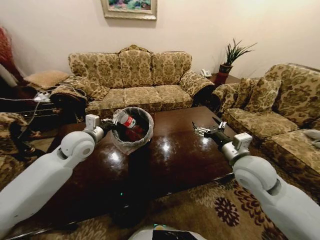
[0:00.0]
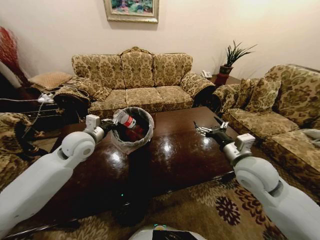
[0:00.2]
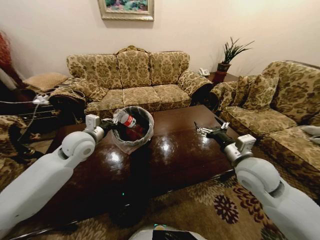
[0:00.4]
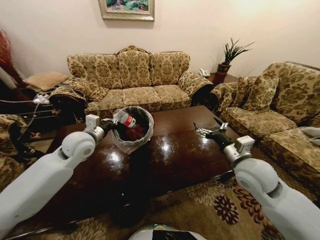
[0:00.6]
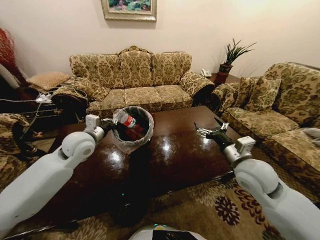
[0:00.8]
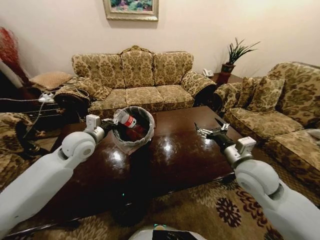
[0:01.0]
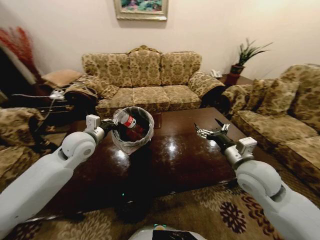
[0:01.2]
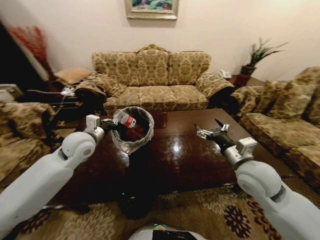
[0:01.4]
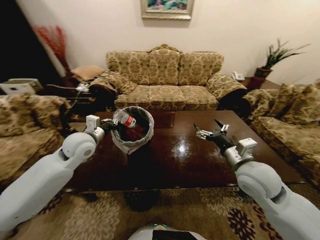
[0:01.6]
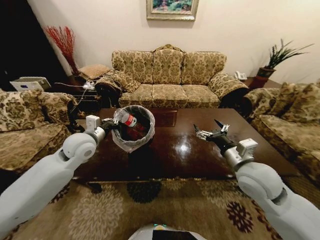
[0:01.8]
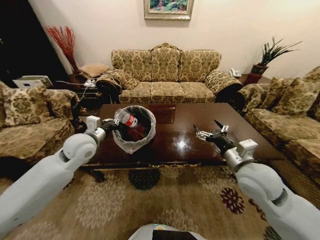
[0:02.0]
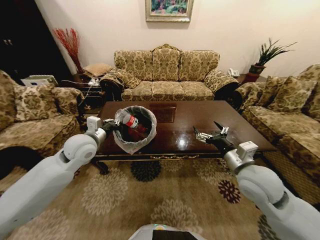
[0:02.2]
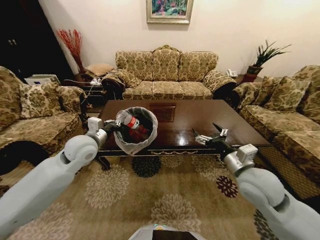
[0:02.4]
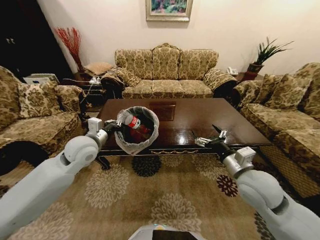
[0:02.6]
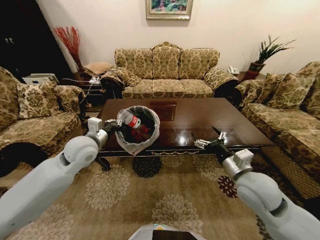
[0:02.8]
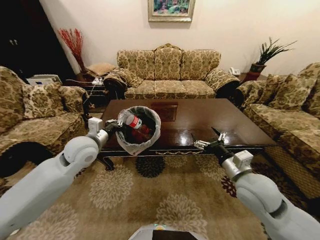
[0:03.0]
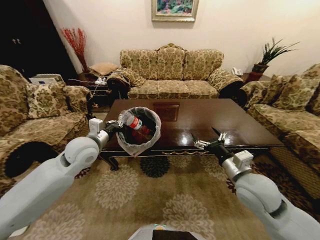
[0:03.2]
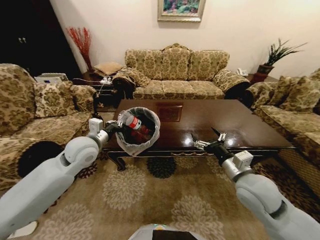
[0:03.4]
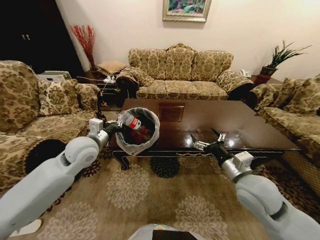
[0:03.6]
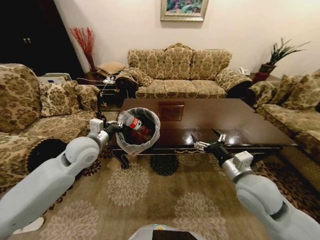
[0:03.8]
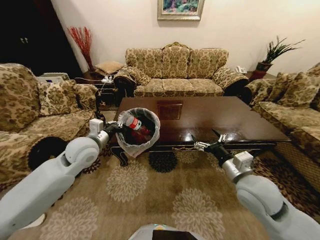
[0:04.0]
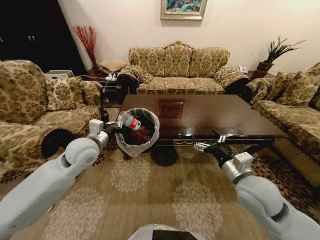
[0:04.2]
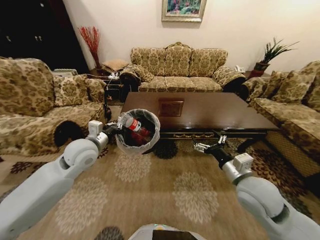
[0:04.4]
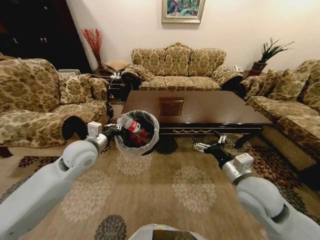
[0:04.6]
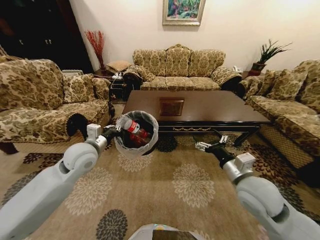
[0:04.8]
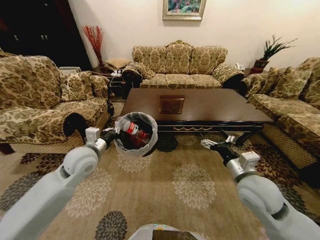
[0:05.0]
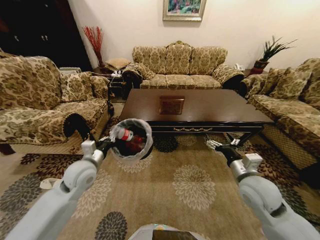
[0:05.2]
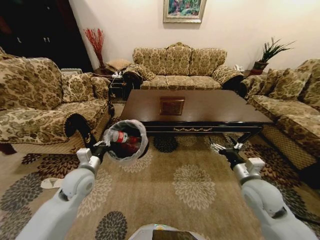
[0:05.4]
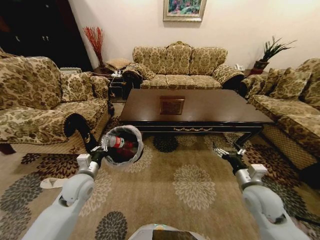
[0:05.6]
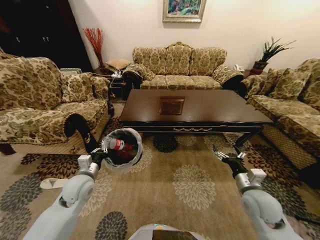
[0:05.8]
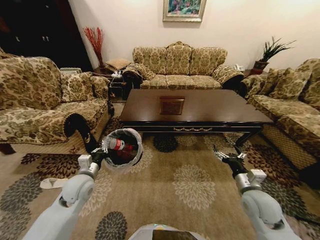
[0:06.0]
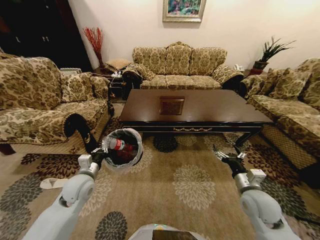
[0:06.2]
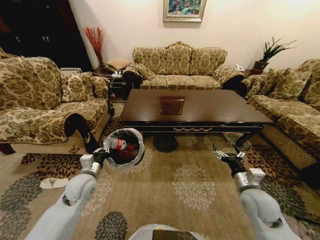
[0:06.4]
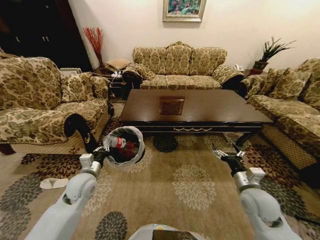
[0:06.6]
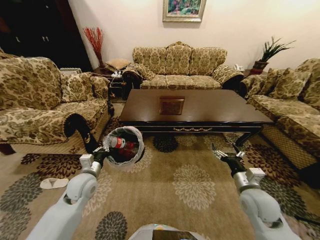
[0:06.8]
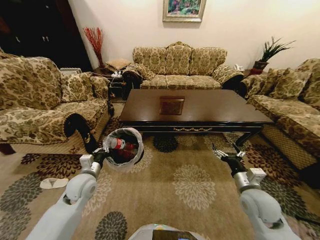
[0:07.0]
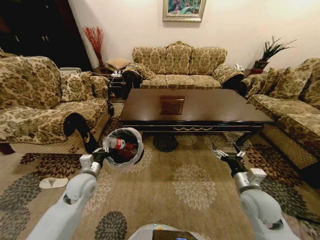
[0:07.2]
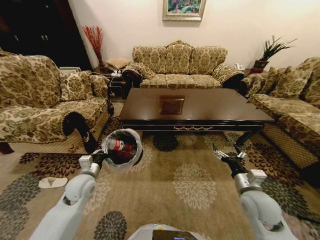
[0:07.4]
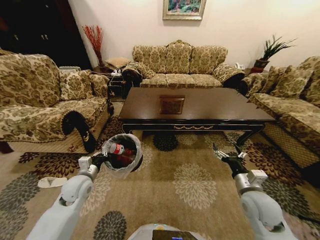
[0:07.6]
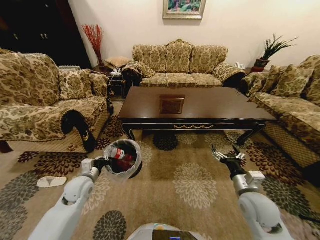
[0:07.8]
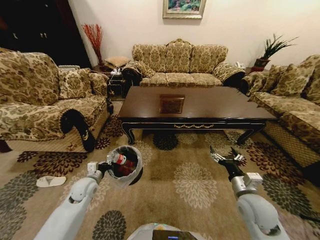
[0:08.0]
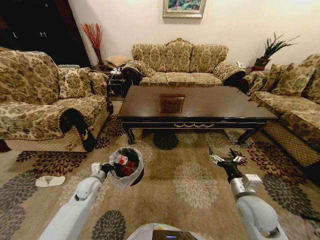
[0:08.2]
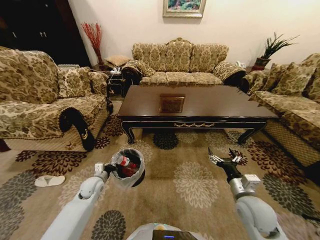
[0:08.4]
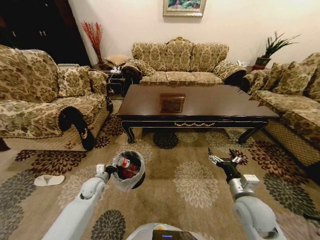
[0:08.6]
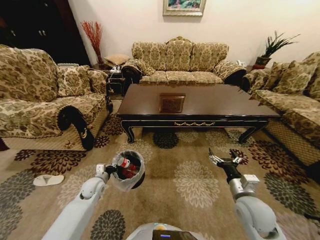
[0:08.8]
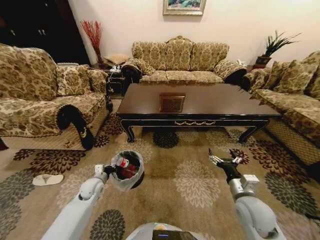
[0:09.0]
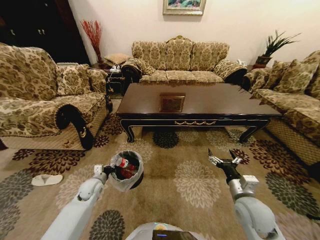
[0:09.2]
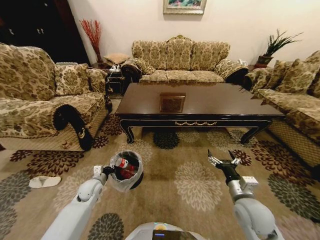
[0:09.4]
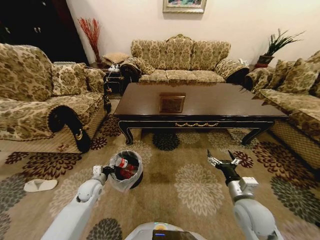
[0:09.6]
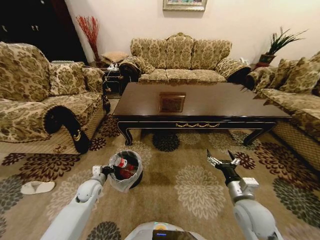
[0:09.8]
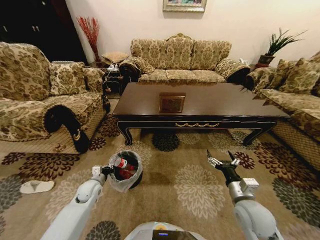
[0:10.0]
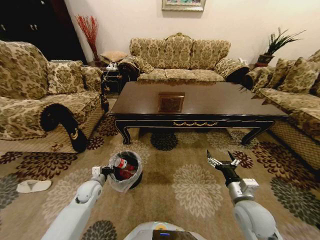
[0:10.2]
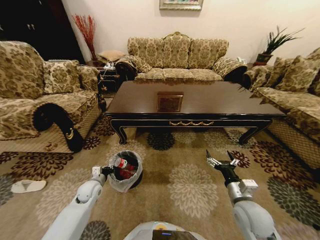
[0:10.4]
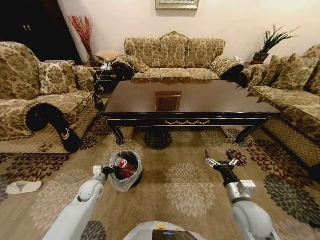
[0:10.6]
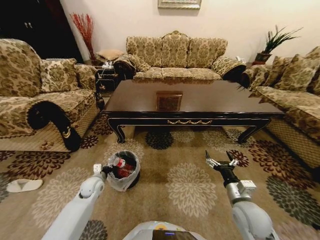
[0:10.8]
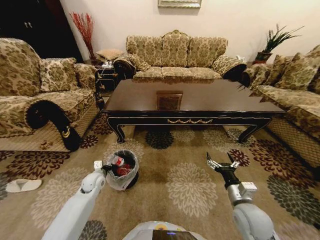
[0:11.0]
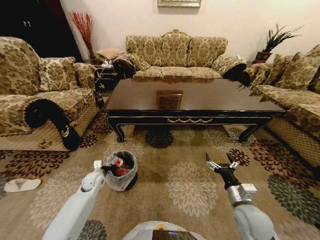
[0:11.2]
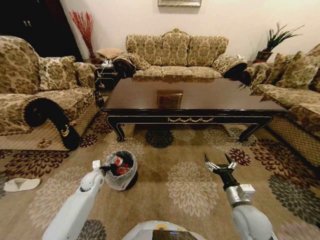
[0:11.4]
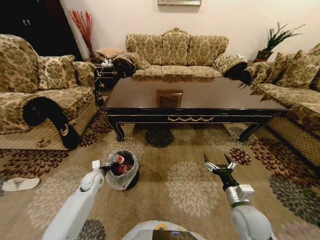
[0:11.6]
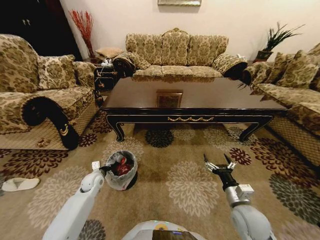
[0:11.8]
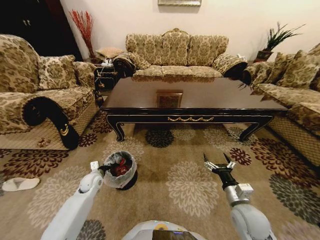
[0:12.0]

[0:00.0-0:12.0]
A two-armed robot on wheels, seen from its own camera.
Task of the whole recording: Move to the front of the table and place the trash on the table into the trash bin.
0:04.4 to 0:06.0: The right gripper travels downward and to the right by roughly 10 cm, while the left gripper goes approximately 15 cm downward and backward.
0:06.0 to 0:07.6: The grippers make only small movements.
0:07.6 to 0:09.0: The left gripper travels downward by some 10 cm.

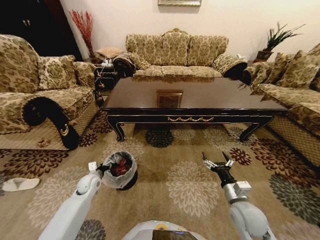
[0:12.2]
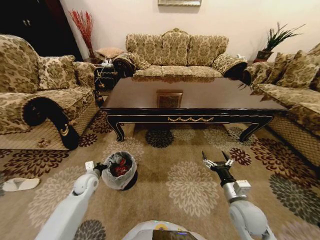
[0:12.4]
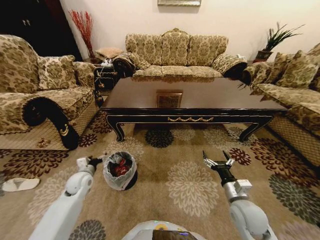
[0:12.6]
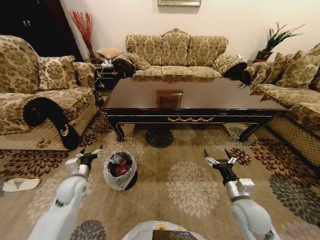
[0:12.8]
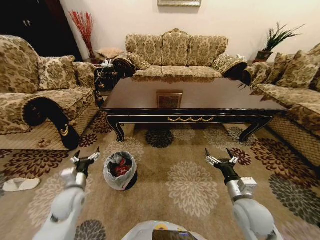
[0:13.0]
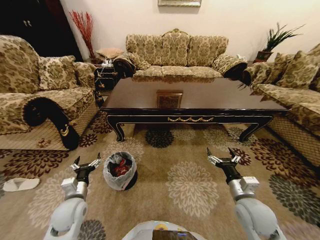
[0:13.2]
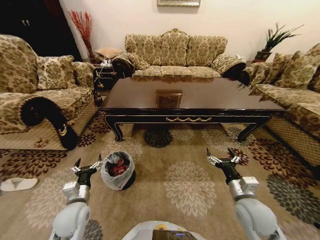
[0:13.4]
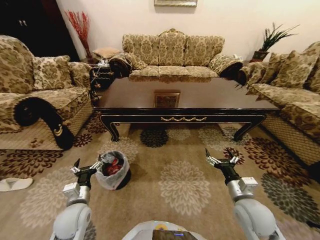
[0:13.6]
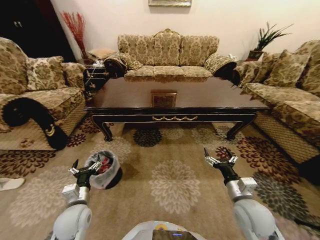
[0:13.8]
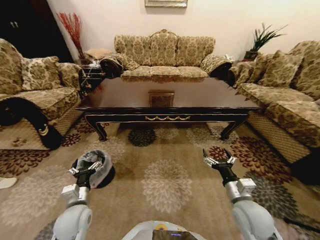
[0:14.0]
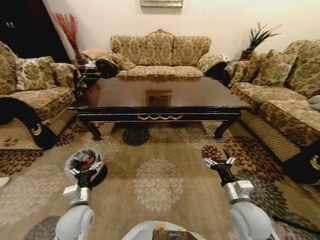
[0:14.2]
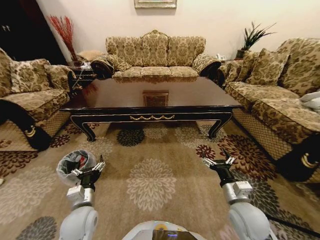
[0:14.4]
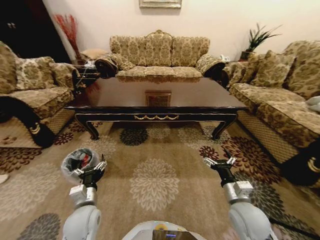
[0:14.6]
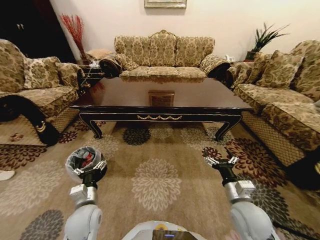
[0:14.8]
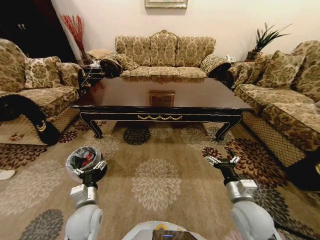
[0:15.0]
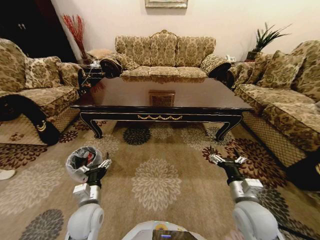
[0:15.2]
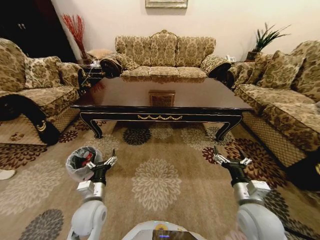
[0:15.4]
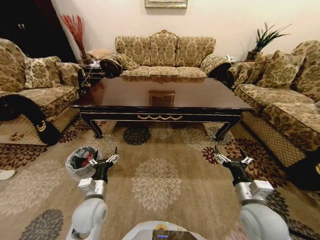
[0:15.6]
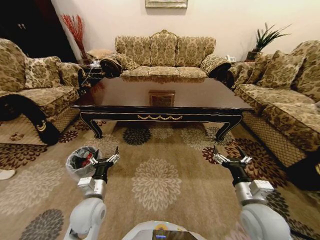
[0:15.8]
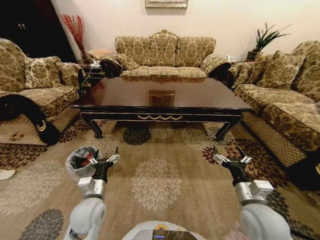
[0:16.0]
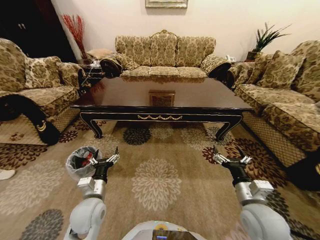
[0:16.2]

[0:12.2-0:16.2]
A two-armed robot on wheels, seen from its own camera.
Task of the whole recording: Move to the front of the table and place the trash on the table into the trash bin.
0:12.2 to 0:13.6: The left gripper shifts roughly 15 cm backward and upward, and opens up.
0:14.8 to 0:16.2: The grippers make only small movements.
